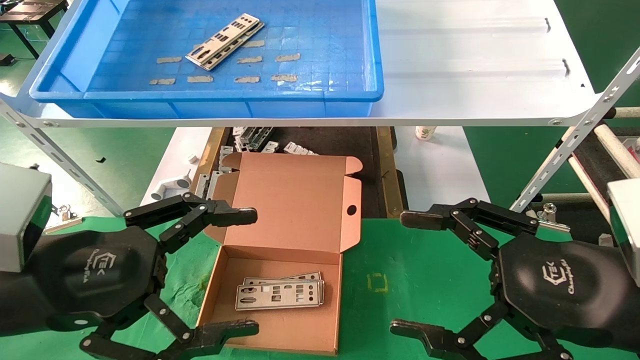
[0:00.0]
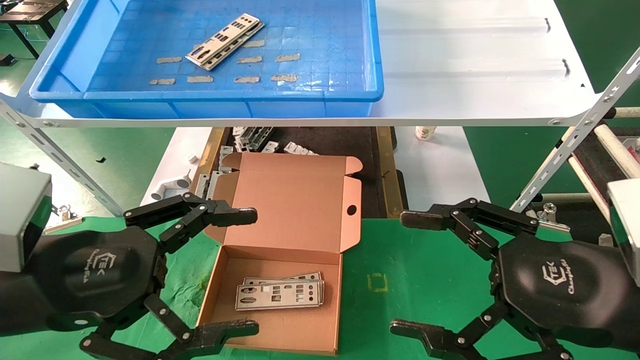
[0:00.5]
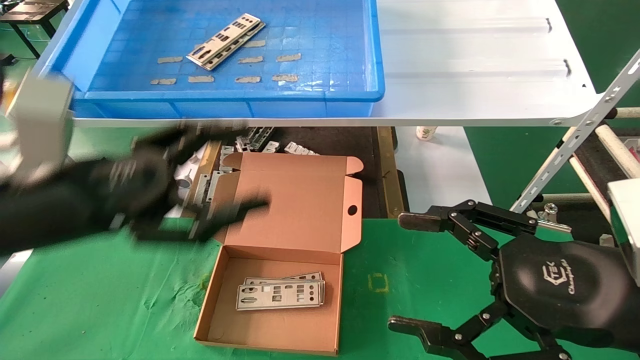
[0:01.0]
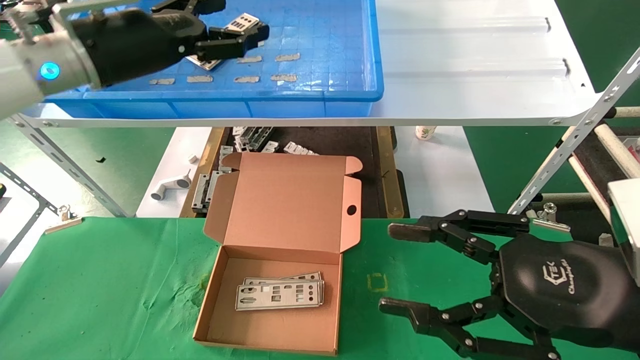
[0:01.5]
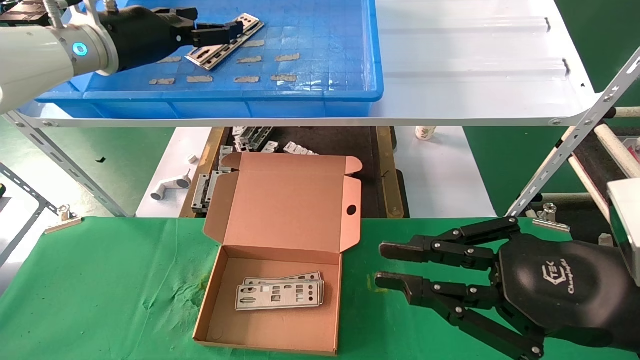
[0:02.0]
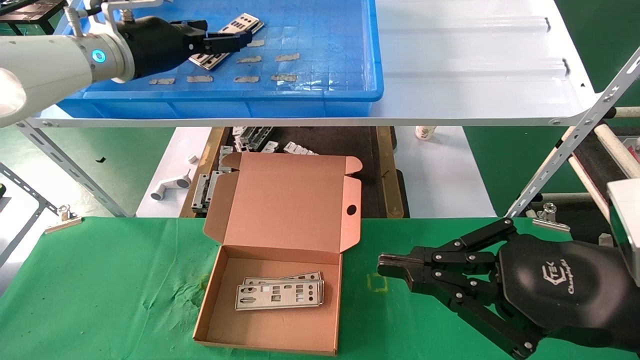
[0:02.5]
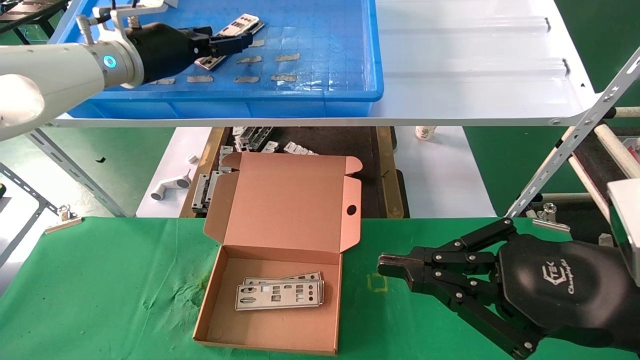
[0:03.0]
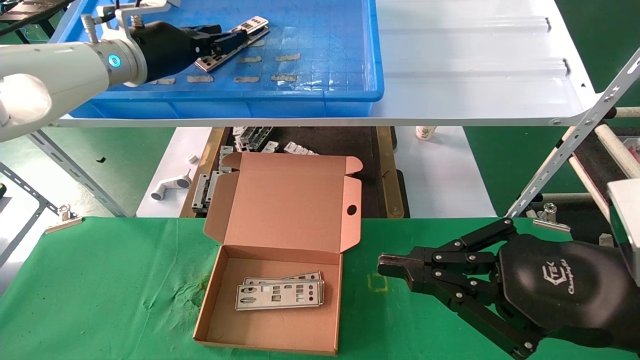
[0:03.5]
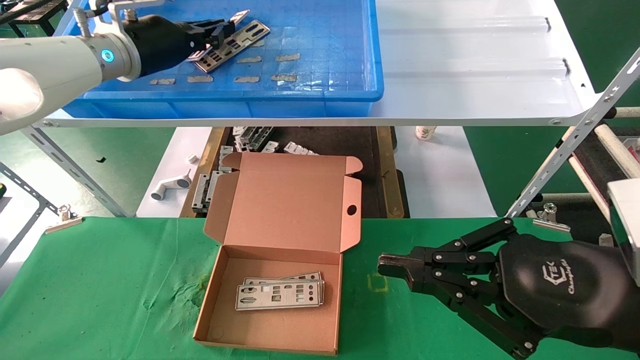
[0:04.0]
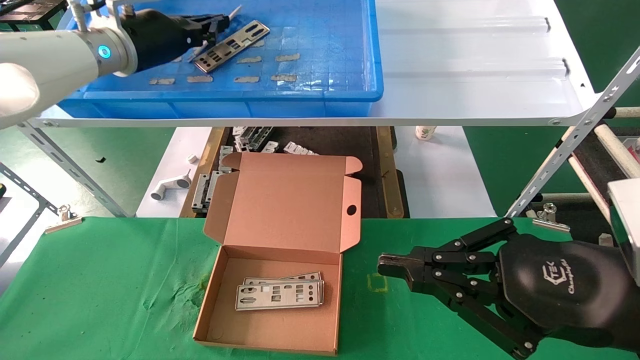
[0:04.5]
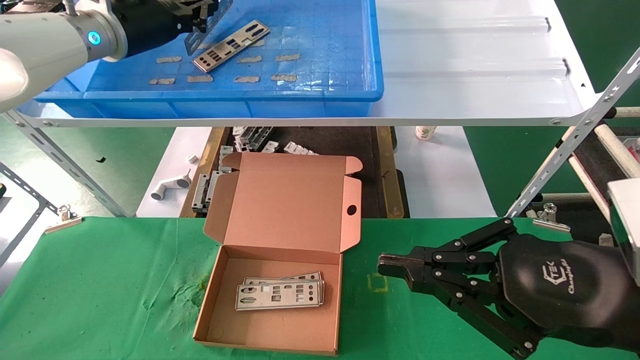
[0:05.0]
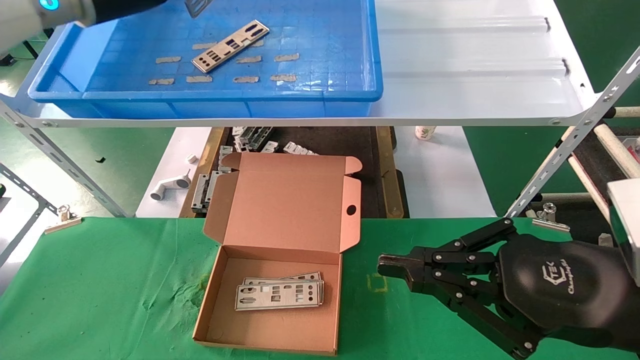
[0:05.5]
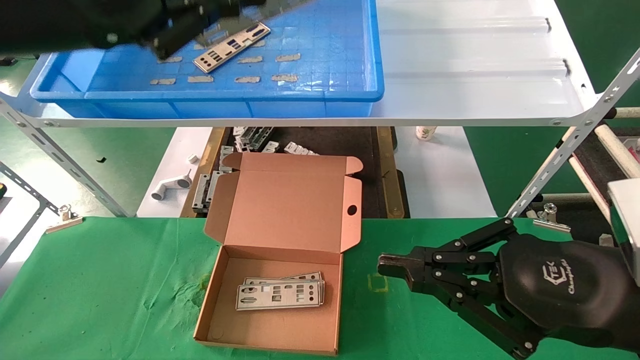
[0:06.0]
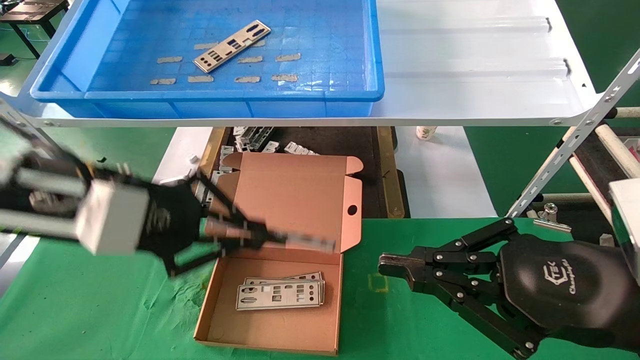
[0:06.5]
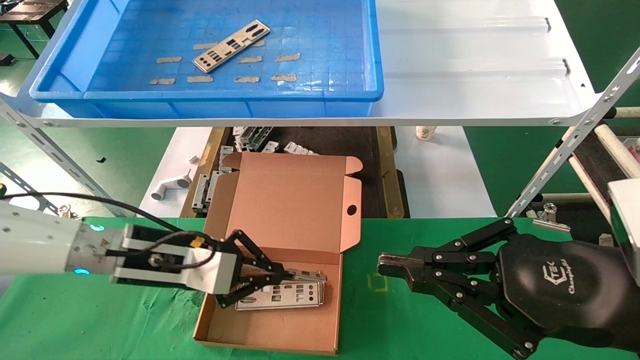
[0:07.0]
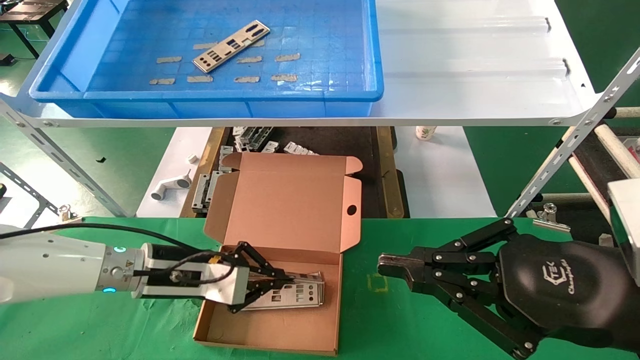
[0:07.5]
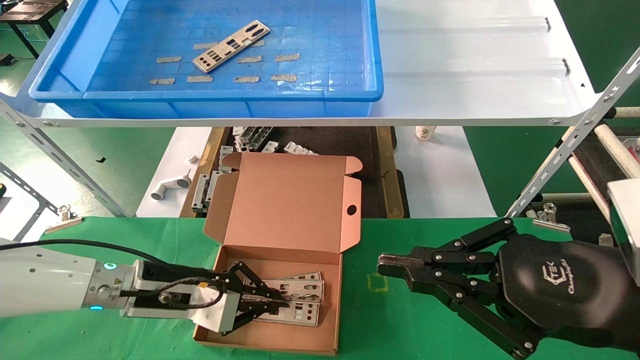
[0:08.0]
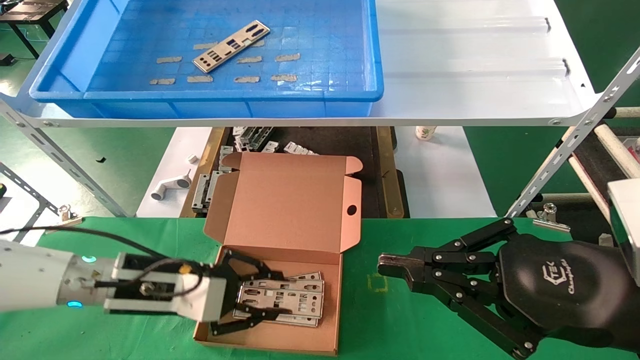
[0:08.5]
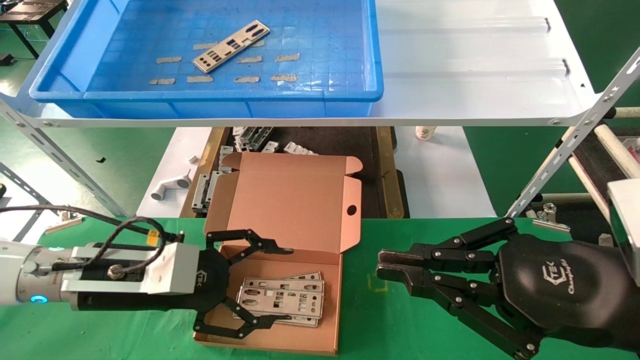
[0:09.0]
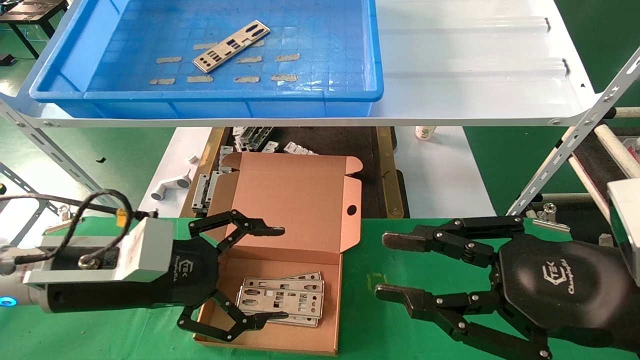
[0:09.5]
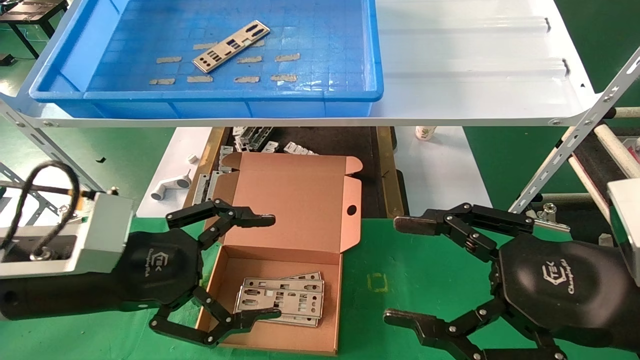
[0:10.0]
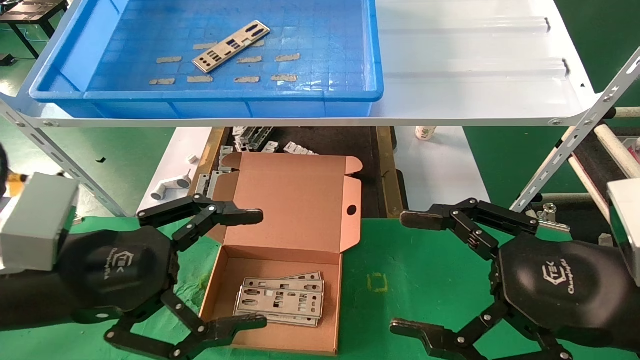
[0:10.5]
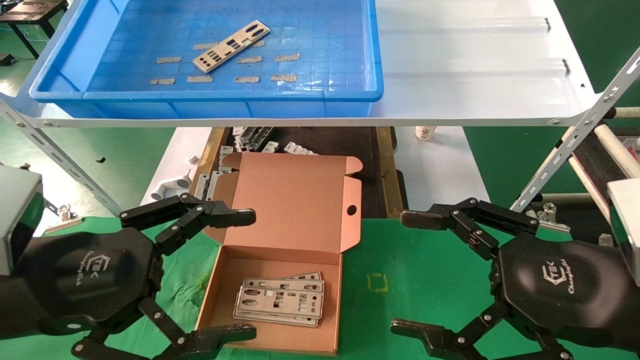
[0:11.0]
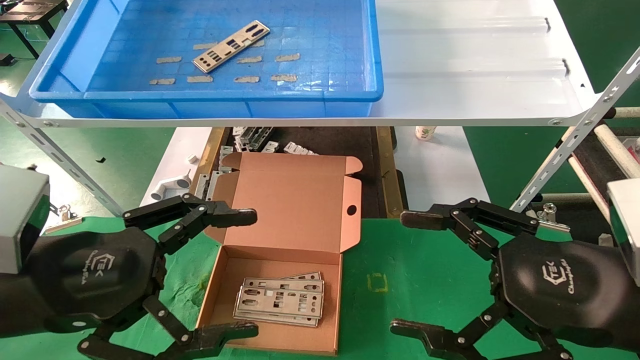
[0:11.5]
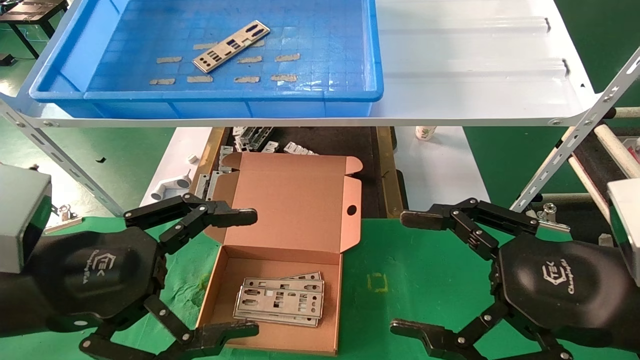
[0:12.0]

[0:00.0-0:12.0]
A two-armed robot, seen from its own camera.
Task of the whole recording: pick up the parts on the tray and put them in the cardboard box.
Step, 0:01.5 to 0:05.0: Pick up the IO bracket from the container box.
Step, 0:05.5 to 0:08.0: Place the IO bracket into the ingredient slot.
0:00.0 to 0:02.0: The left gripper heads forward and upward, covering roughly 30 cm. Meanwhile the right gripper closes.
0:02.0 to 0:04.0: The left gripper closes its fingers.
0:04.0 to 0:06.0: The left gripper moves backward, about 15 cm.
0:06.0 to 0:08.0: The left gripper goes some 30 cm downward.
0:08.0 to 0:10.0: The left gripper heads backward and upward, covering approximately 15 cm, and opens; the right gripper opens up.
0:10.0 to 0:12.0: The left gripper changes place by roughly 5 cm.

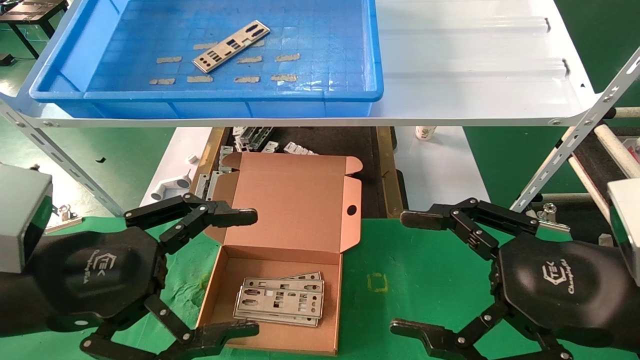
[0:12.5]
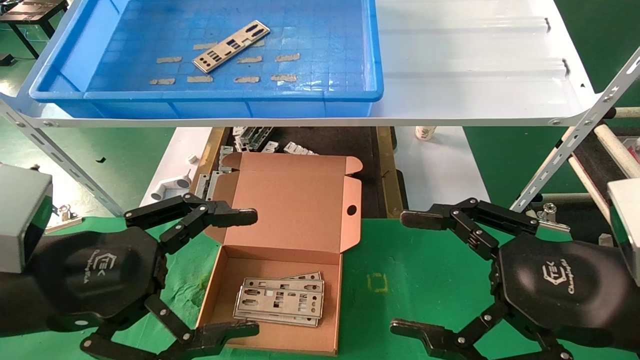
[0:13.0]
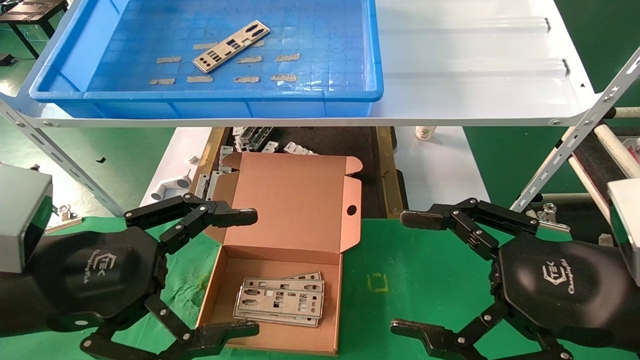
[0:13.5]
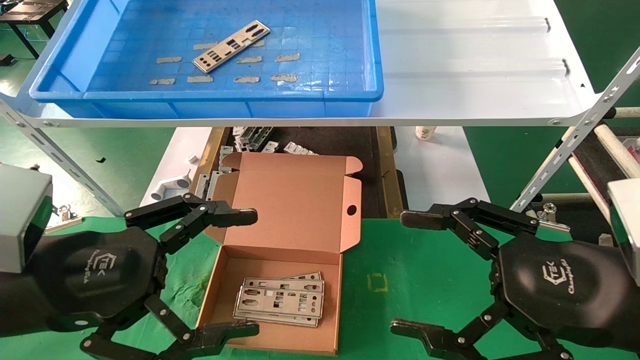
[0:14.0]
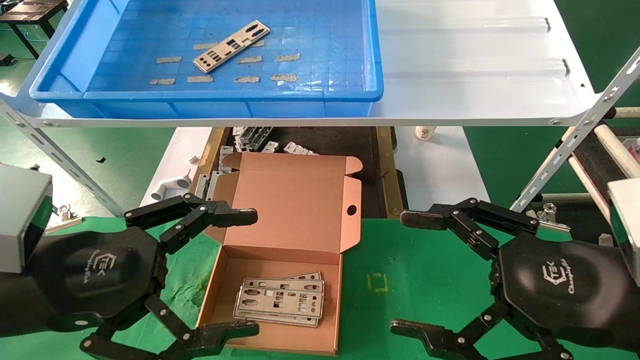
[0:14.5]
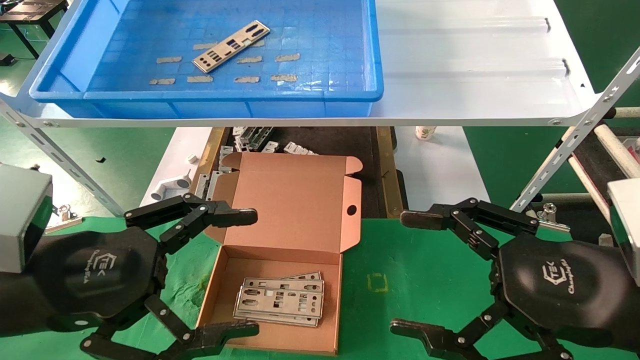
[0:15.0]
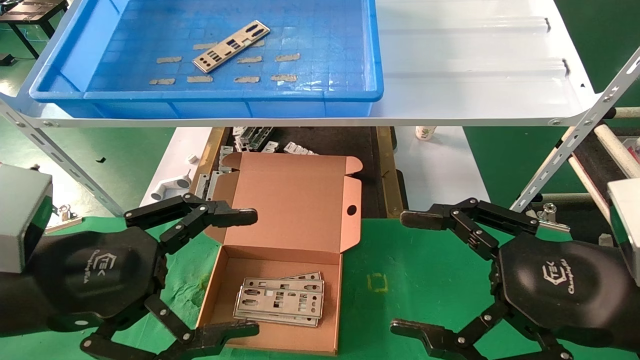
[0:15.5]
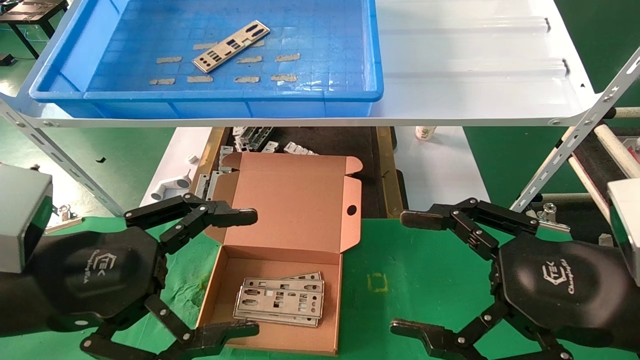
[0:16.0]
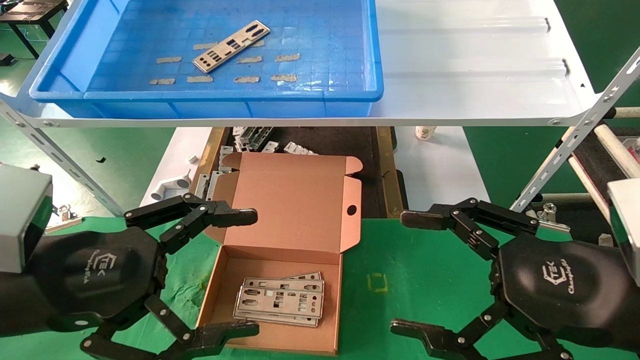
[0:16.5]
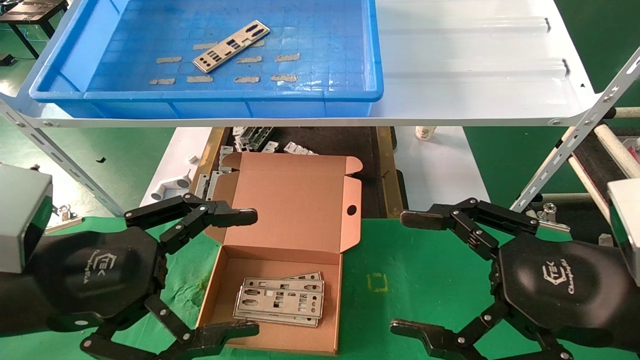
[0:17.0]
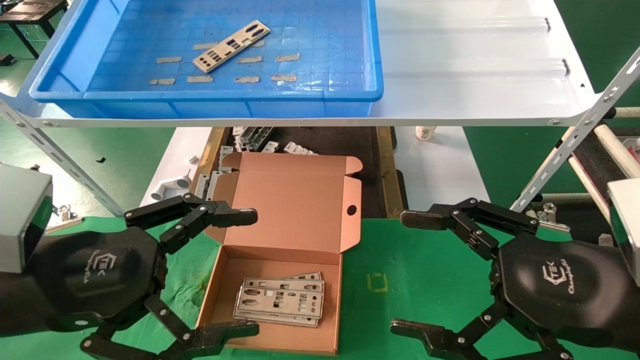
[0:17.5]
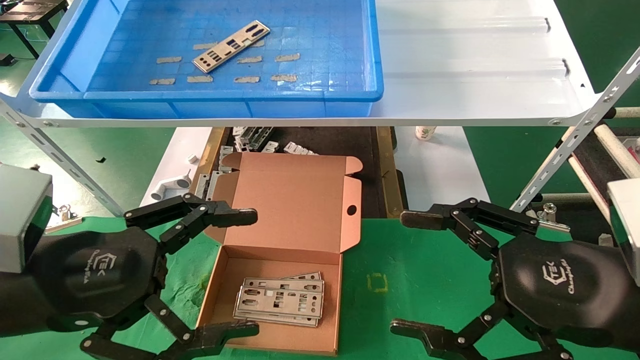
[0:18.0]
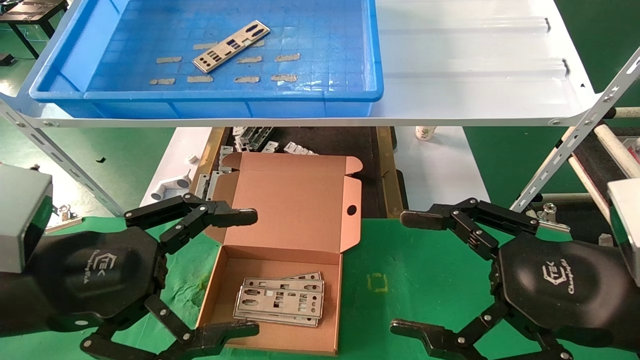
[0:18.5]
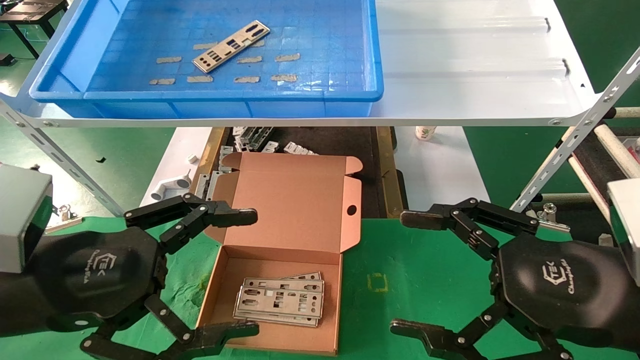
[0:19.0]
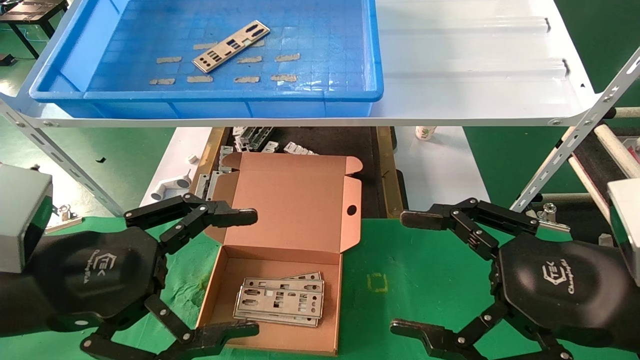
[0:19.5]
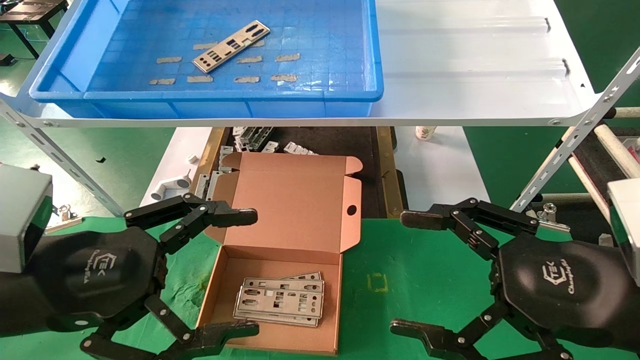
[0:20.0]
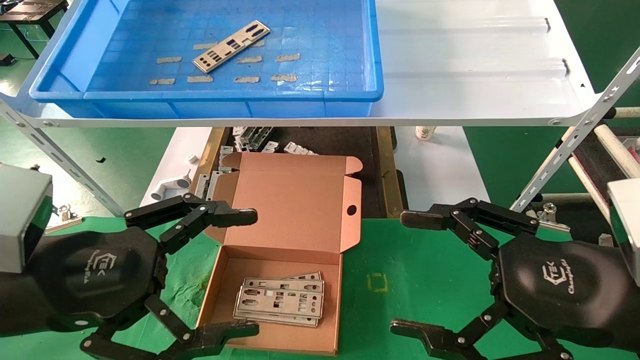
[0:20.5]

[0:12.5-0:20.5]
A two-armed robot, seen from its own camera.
Task of the whole recording: pick up the parts on the tray and put them in the cardboard box.
0:12.5 to 0:20.5: Neither gripper changes place.
